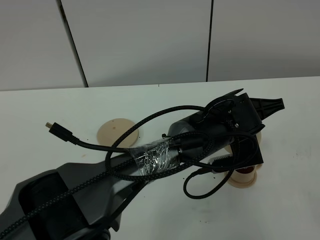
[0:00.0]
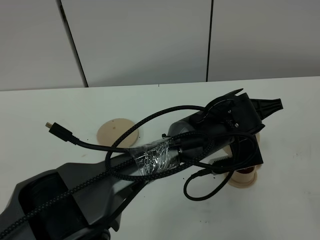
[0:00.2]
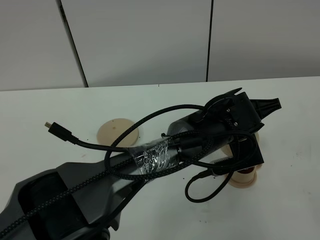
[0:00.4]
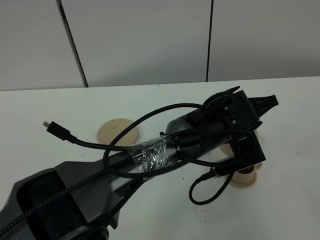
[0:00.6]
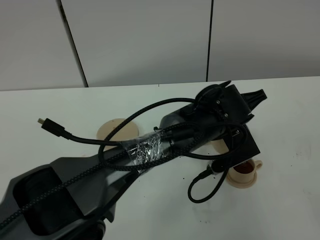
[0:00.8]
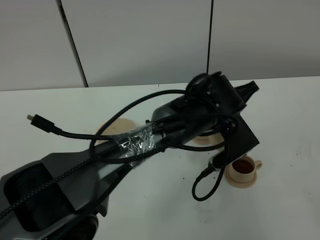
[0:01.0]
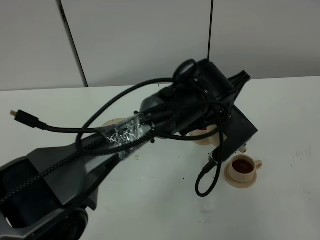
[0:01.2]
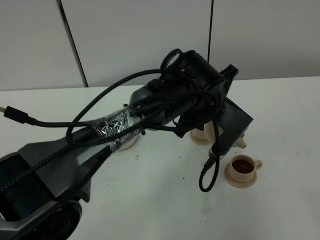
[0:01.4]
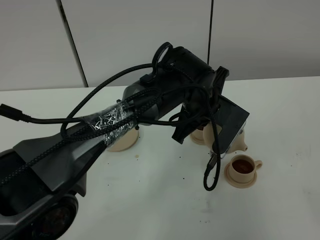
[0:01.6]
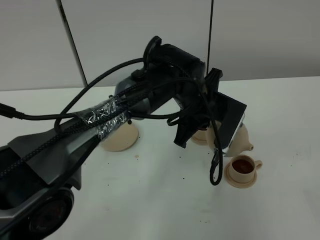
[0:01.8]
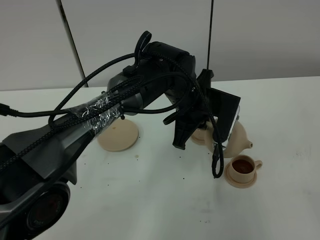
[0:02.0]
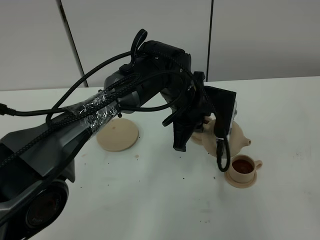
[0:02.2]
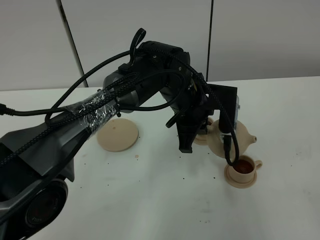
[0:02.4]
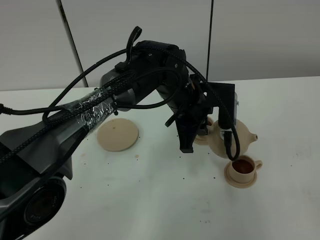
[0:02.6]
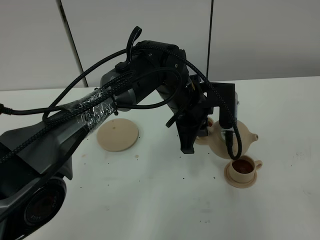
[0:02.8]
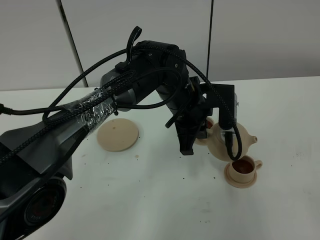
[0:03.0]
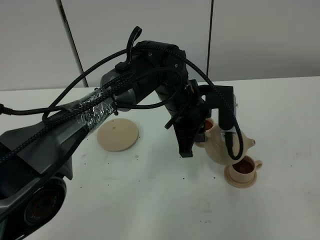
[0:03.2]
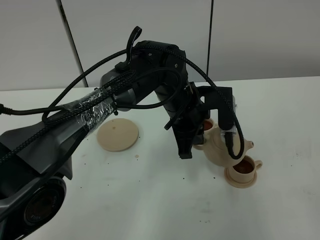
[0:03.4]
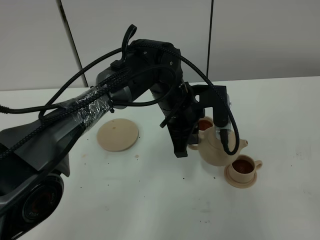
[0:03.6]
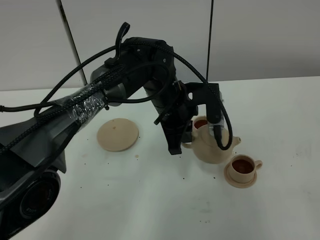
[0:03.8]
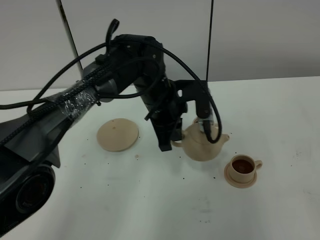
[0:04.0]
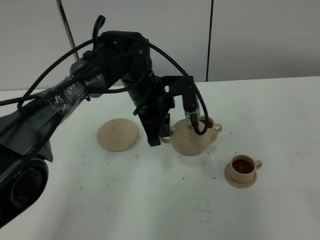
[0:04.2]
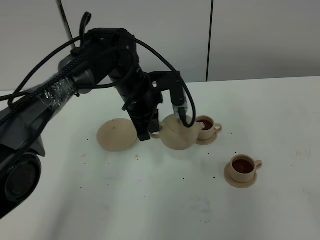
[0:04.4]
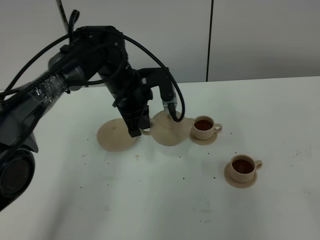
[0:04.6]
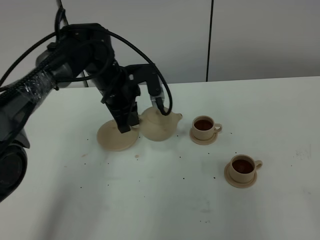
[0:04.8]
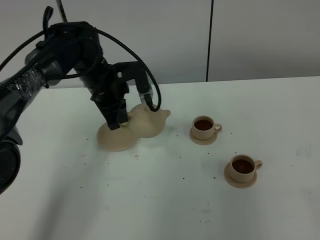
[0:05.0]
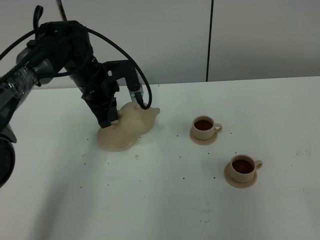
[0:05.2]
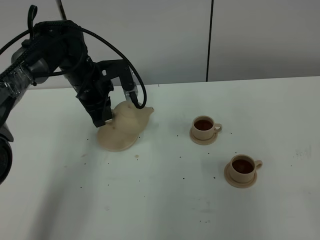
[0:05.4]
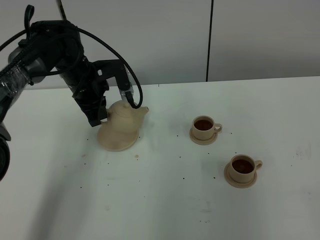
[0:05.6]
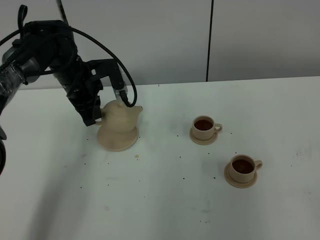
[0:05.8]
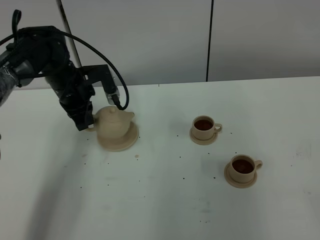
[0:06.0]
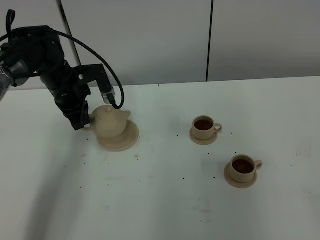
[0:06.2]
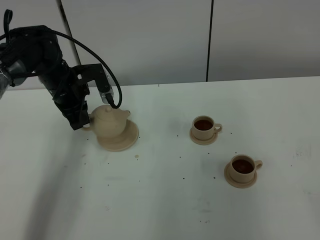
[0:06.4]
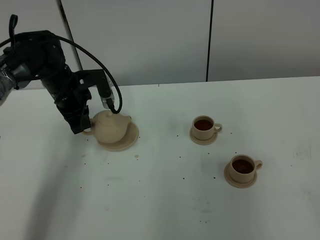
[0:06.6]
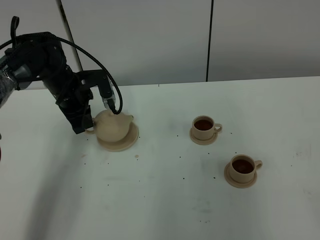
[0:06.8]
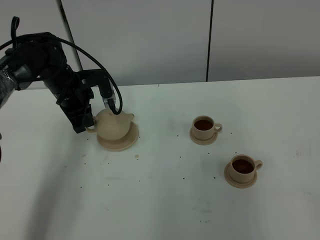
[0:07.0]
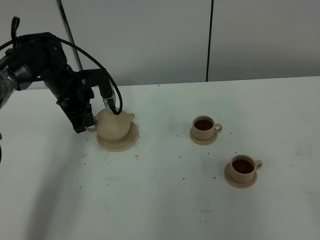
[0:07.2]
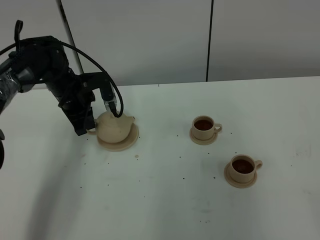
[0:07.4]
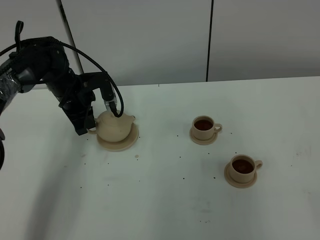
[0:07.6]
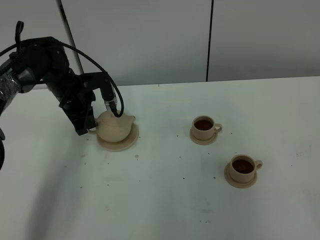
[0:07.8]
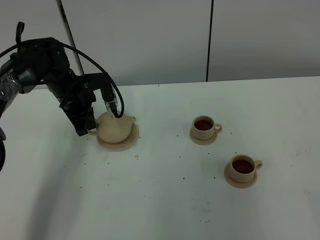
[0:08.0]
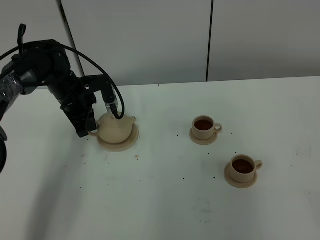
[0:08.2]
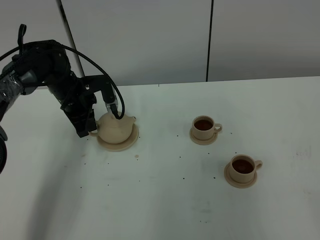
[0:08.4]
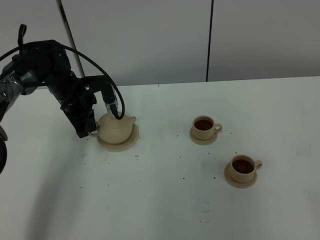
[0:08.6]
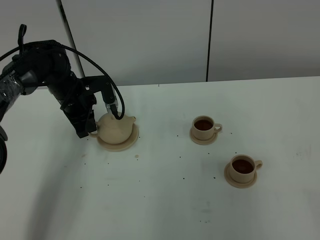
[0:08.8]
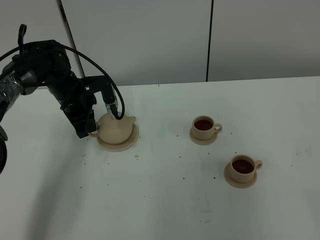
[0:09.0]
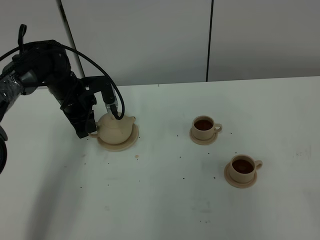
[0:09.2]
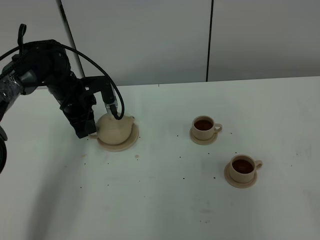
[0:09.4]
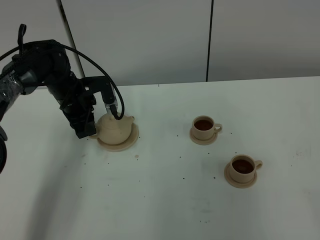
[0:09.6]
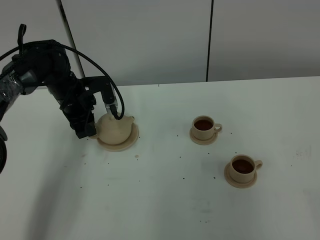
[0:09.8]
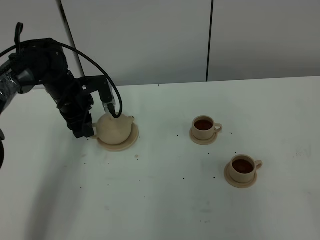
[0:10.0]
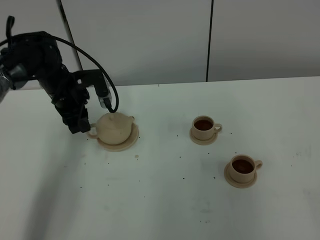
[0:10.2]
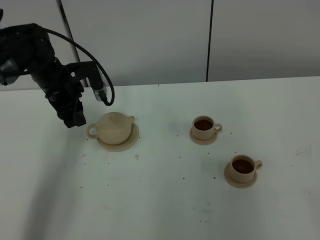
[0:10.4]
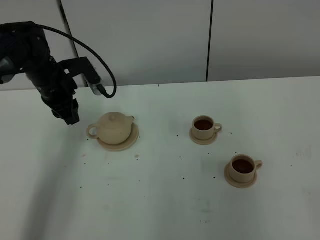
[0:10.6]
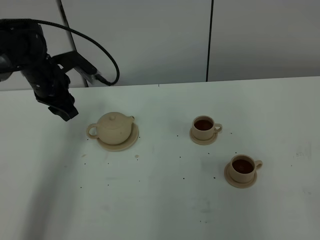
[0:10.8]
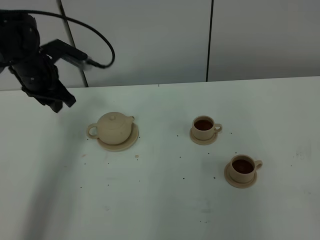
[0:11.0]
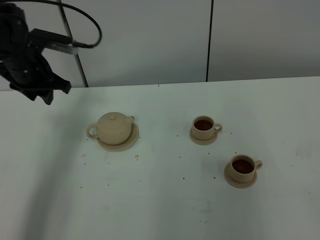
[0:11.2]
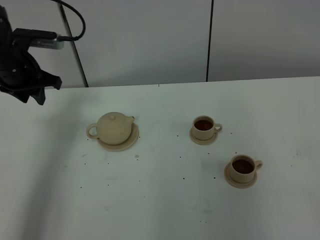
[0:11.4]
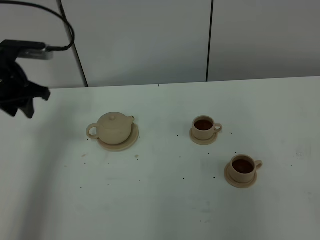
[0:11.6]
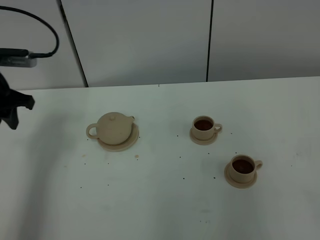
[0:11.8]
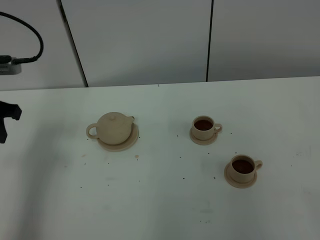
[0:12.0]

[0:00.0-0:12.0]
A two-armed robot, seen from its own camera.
Task of the whole recording: grasp the brown teapot and pour the tea into the two brown teacups one by one, put the brown teapot back in its original place.
0:00.0 to 0:01.6: The left gripper is displaced to the left by some 5 cm.
0:03.0 to 0:04.4: The left gripper is displaced to the left by about 10 cm.
0:04.4 to 0:06.0: The left gripper goes about 15 cm to the left.
0:06.0 to 0:07.6: The grippers make only small movements.
0:07.6 to 0:09.0: Both grippers stay about where they are.
0:09.0 to 0:10.4: The left gripper opens.
0:10.4 to 0:12.0: The left gripper shifts approximately 20 cm backward, to the left and upward.

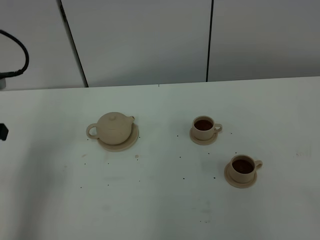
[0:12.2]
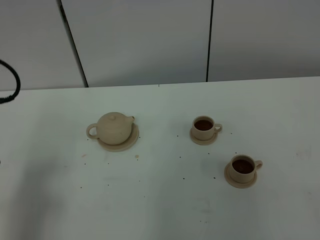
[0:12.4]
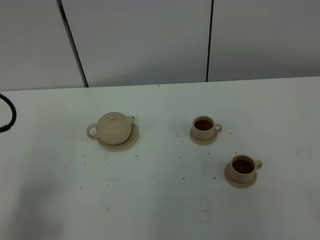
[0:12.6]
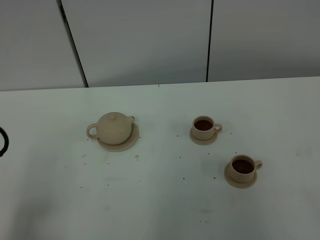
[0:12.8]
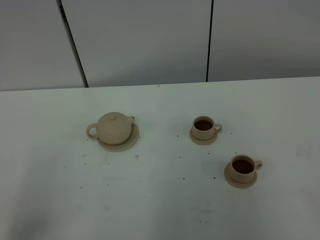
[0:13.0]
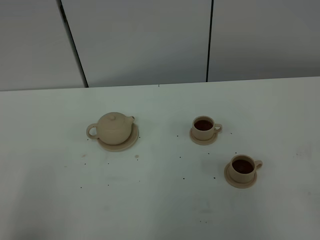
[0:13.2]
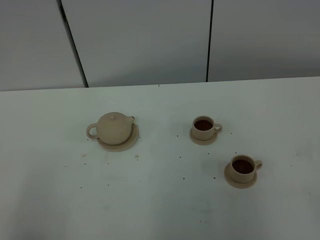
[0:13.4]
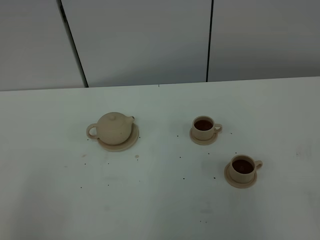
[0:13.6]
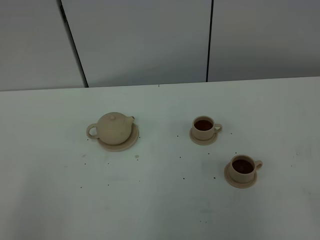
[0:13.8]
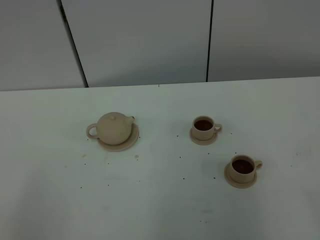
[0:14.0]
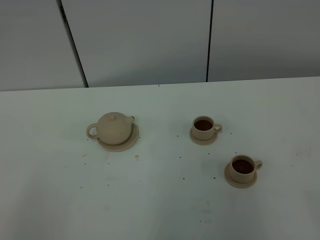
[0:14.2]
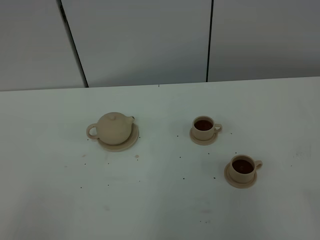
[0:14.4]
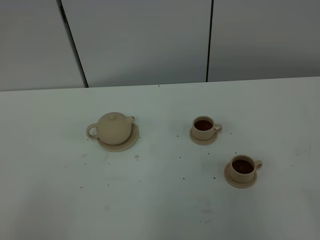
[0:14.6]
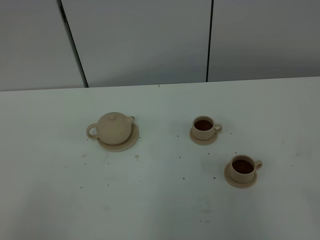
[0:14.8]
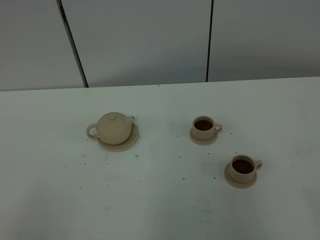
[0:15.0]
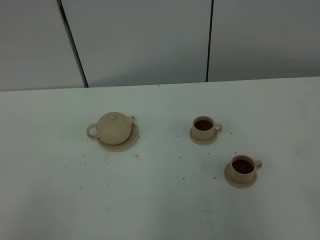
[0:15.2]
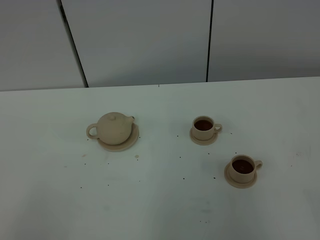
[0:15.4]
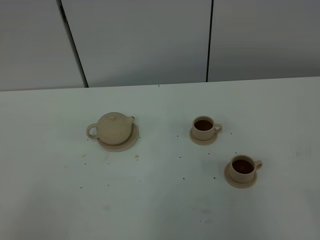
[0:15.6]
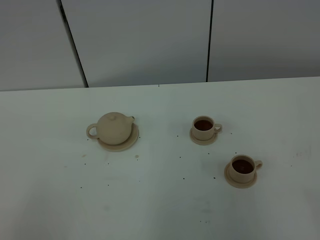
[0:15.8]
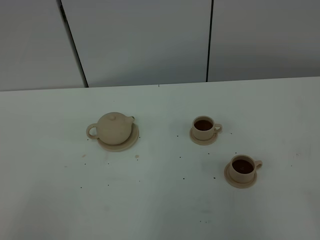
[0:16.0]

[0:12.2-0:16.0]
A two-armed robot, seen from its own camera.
Task of the whole recording: grasp the brown teapot and pour the tea into the two brown teacups one by one, put the brown teapot back in its original place.
0:12.2 to 0:13.4: The left gripper travels backward by some 20 cm.
0:14.8 to 0:16.0: Neither gripper changes place.

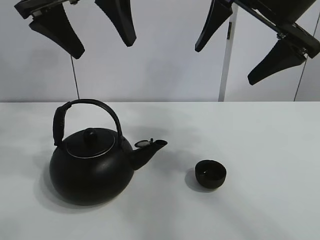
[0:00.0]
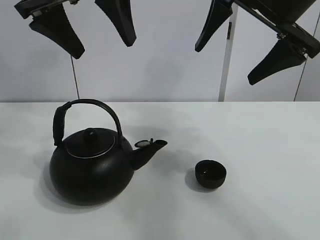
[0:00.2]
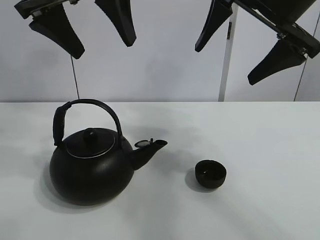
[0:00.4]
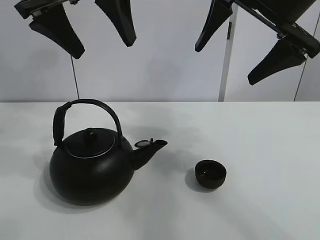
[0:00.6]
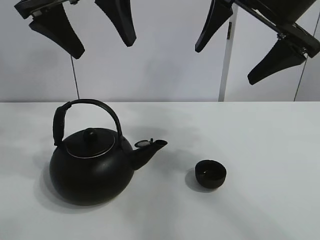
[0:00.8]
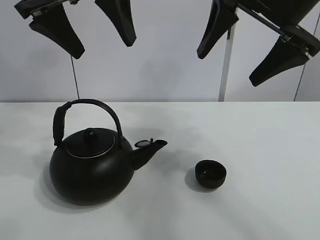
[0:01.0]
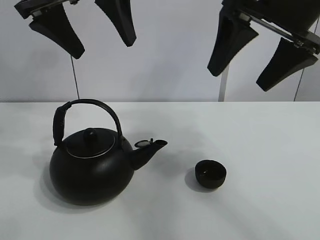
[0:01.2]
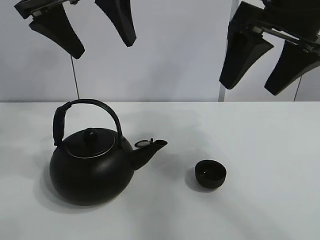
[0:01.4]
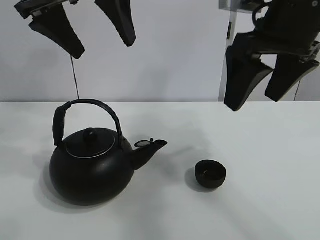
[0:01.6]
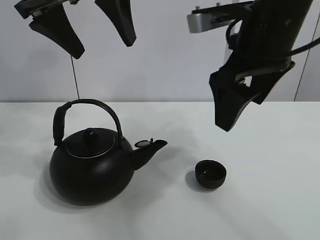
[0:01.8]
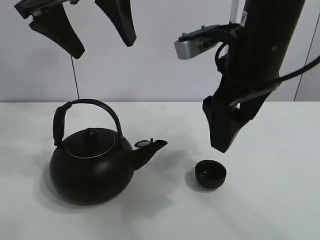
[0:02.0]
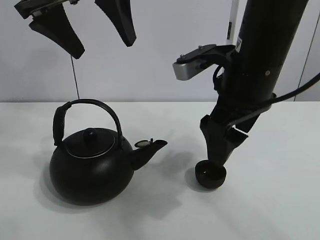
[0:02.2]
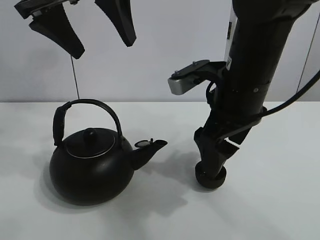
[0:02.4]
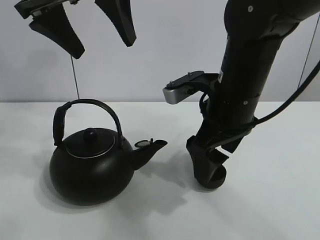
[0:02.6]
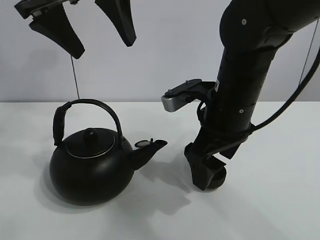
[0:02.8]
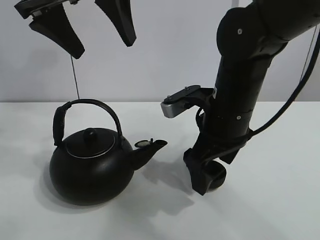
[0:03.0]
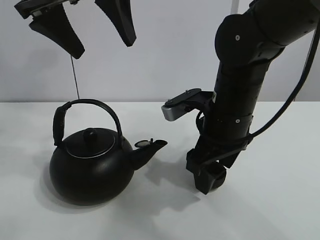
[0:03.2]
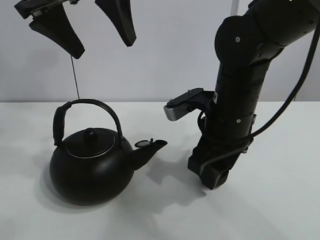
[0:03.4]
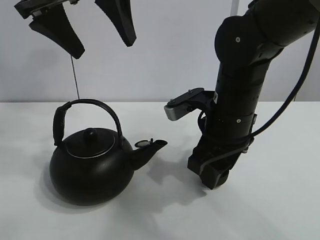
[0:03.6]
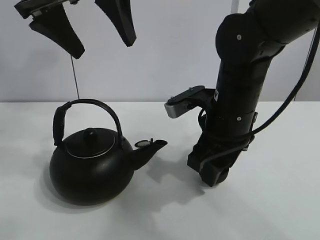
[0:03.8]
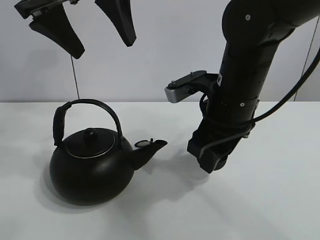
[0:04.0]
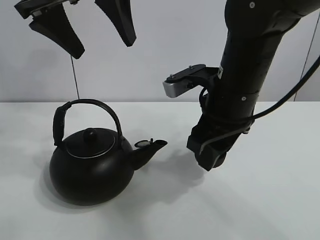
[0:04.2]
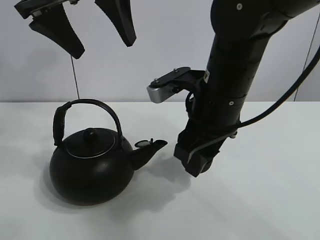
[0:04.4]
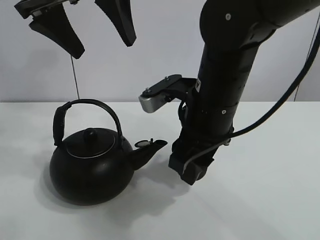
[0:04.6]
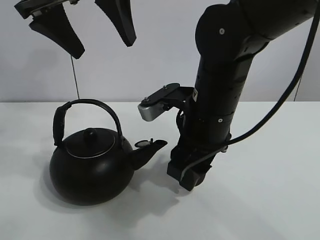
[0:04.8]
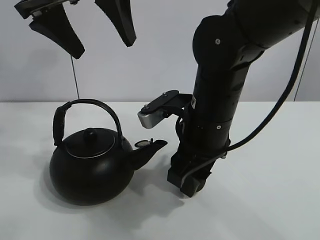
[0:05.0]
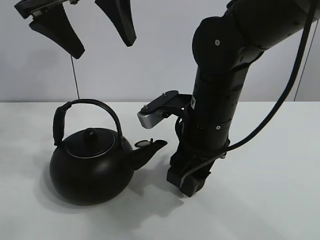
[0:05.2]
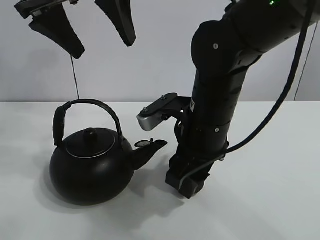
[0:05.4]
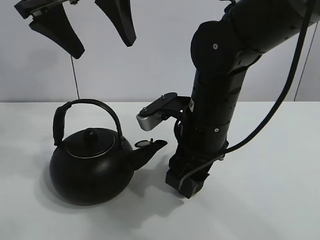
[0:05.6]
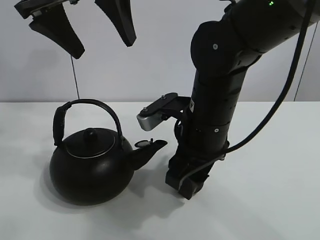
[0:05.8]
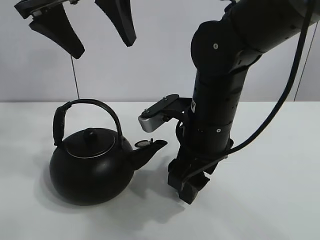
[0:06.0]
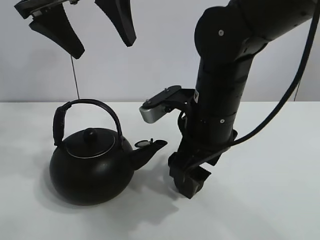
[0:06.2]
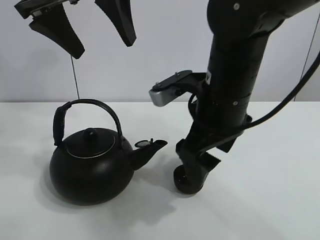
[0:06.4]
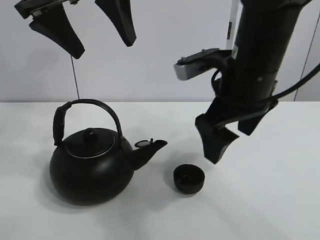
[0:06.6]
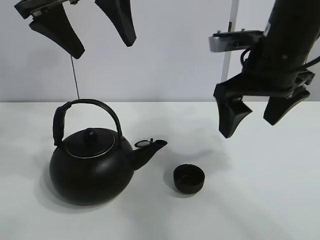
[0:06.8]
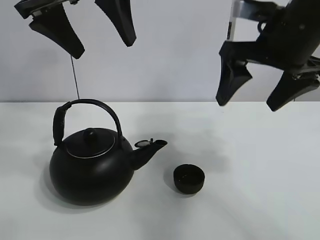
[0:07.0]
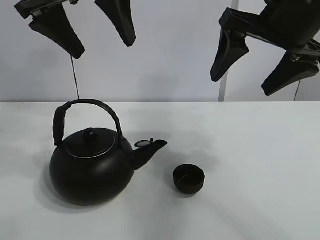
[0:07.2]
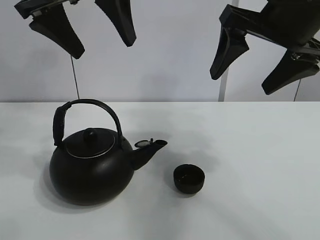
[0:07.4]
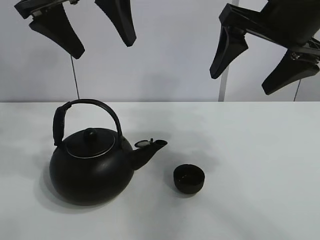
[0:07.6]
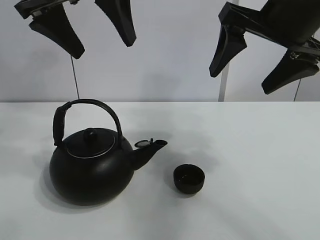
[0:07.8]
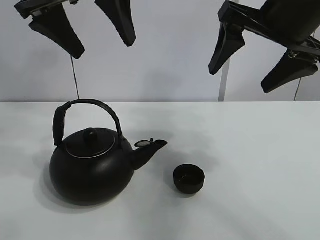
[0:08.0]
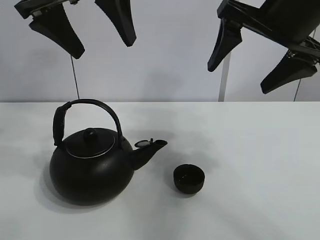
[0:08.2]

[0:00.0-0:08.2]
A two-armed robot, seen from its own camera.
Task of the whole recording: pour tea into the teacup.
Step, 0:00.0 to 0:03.8: Pick up the teacup with the right gripper.
Step, 0:04.0 to 0:06.0: Place the teacup in the center of view with the right gripper.
0:01.6 to 0:03.2: The right gripper moves downward and to the left, about 15 cm, and closes its fingers.
0:03.2 to 0:05.0: The right gripper closes up.
0:05.0 to 0:06.6: The right gripper goes some 5 cm upward, and opens.
0:06.6 to 0:08.2: The right gripper shifts roughly 10 cm upward and to the right.
